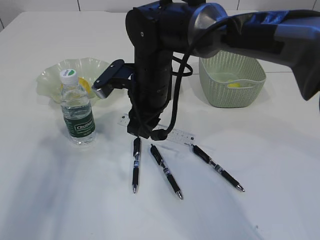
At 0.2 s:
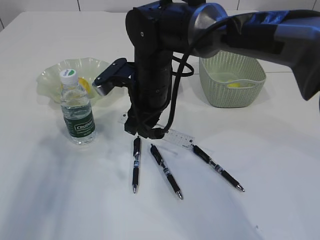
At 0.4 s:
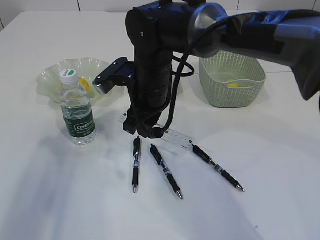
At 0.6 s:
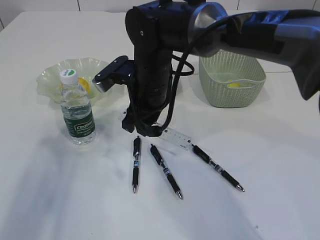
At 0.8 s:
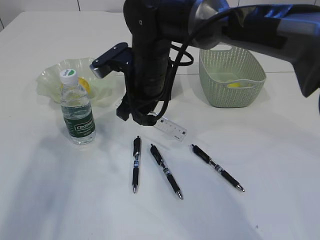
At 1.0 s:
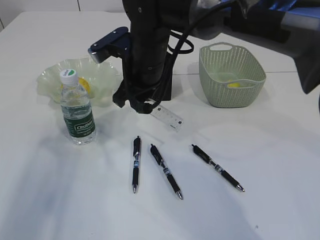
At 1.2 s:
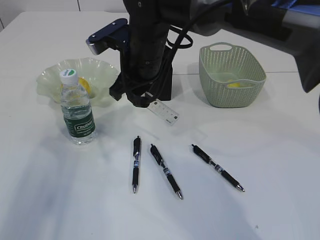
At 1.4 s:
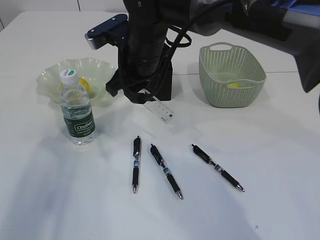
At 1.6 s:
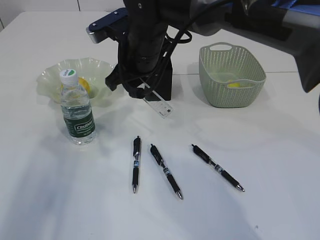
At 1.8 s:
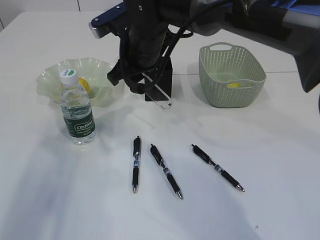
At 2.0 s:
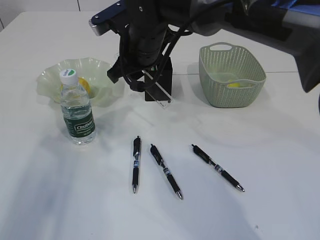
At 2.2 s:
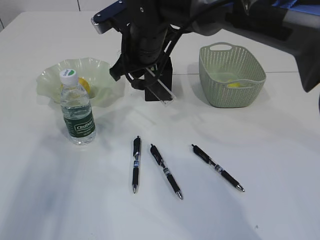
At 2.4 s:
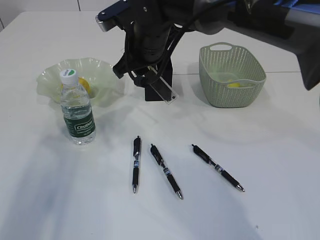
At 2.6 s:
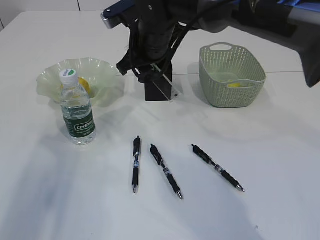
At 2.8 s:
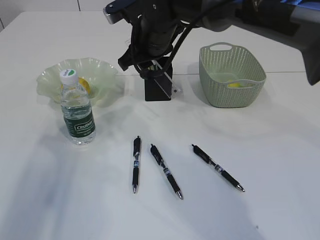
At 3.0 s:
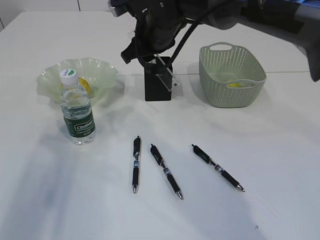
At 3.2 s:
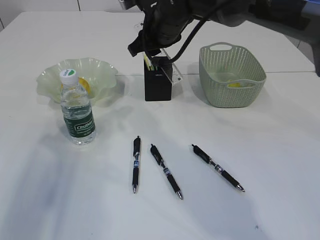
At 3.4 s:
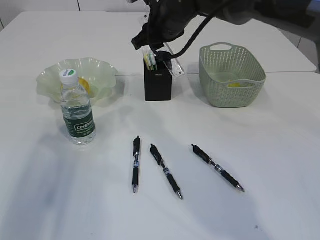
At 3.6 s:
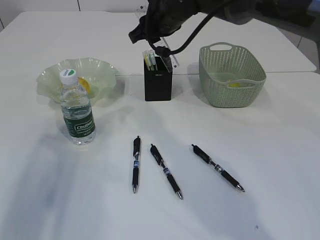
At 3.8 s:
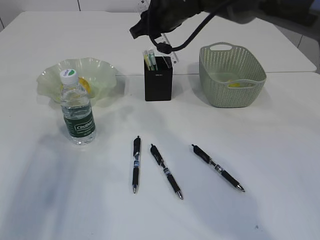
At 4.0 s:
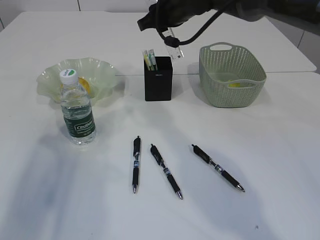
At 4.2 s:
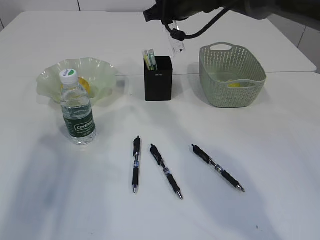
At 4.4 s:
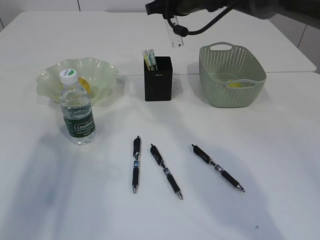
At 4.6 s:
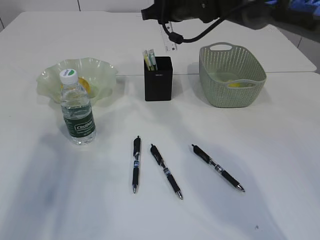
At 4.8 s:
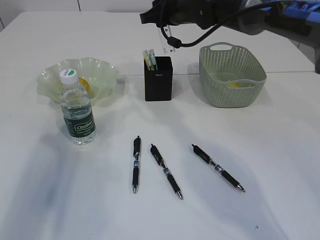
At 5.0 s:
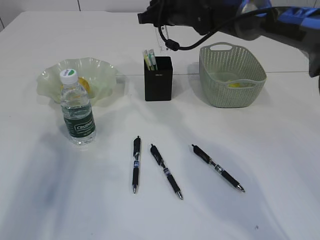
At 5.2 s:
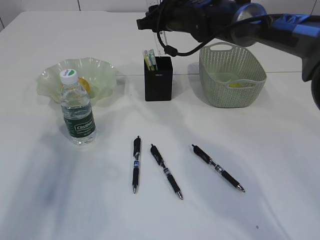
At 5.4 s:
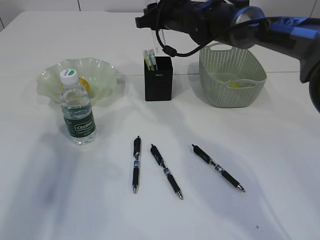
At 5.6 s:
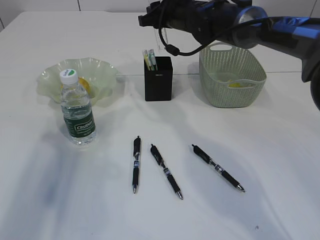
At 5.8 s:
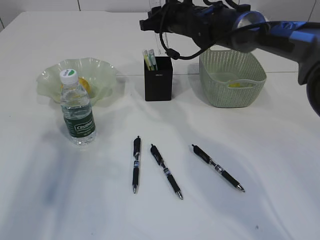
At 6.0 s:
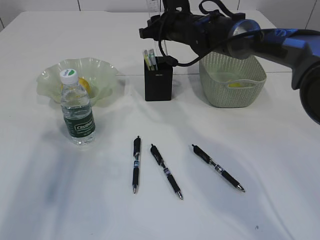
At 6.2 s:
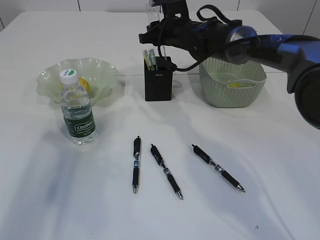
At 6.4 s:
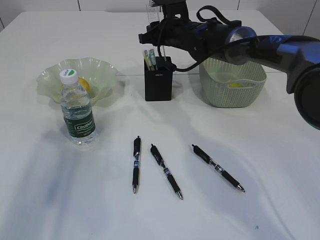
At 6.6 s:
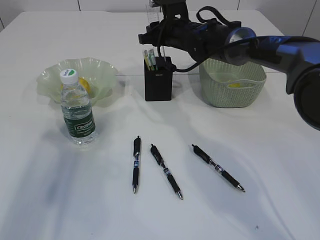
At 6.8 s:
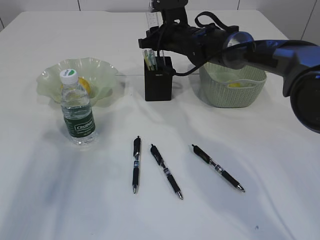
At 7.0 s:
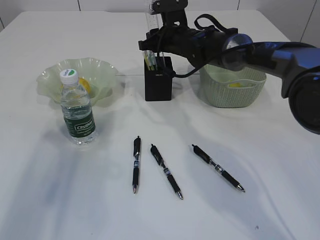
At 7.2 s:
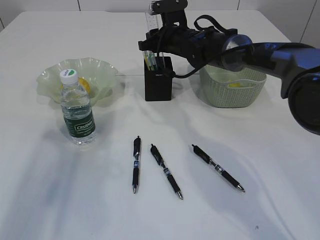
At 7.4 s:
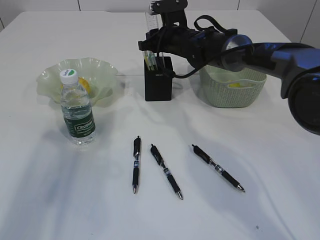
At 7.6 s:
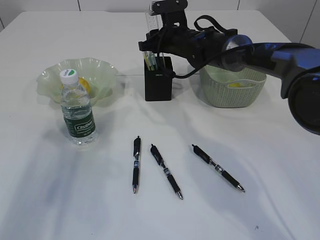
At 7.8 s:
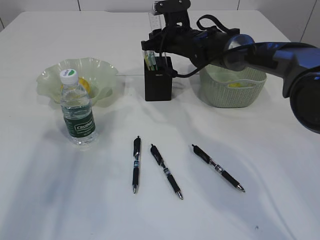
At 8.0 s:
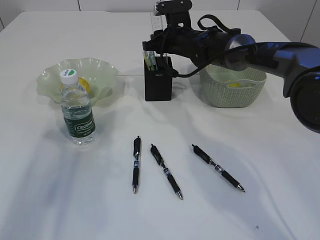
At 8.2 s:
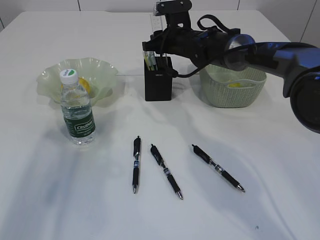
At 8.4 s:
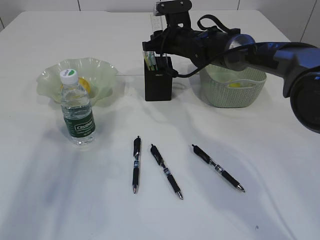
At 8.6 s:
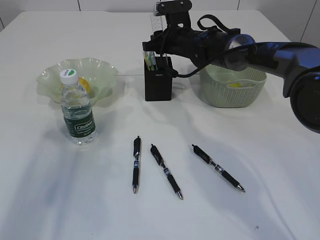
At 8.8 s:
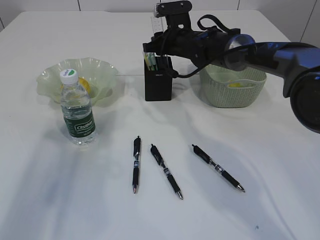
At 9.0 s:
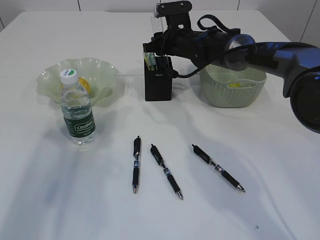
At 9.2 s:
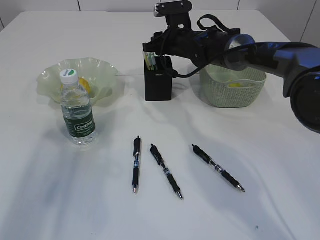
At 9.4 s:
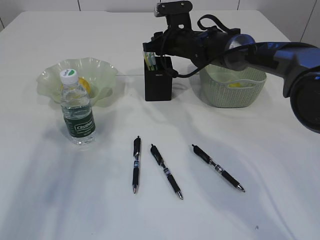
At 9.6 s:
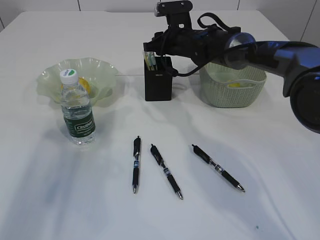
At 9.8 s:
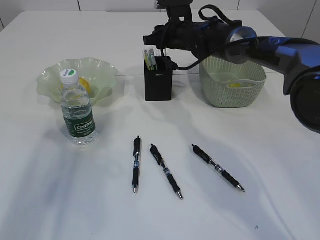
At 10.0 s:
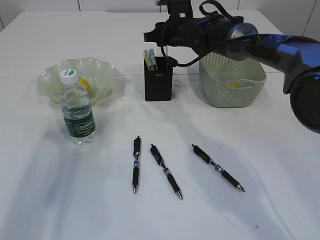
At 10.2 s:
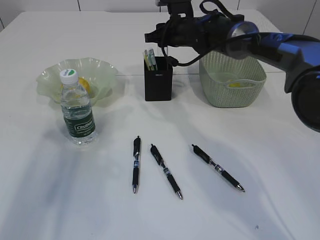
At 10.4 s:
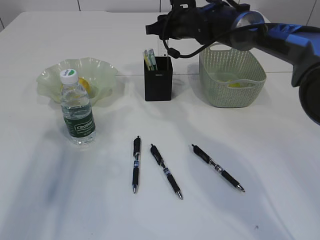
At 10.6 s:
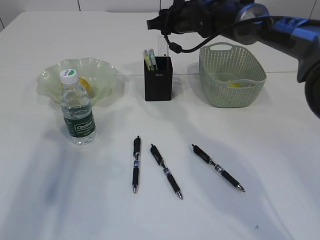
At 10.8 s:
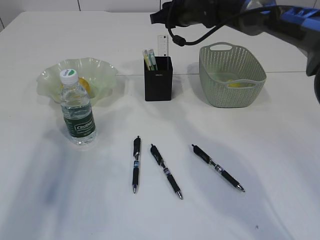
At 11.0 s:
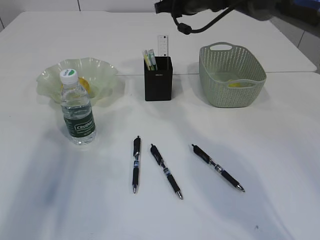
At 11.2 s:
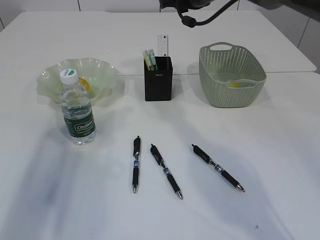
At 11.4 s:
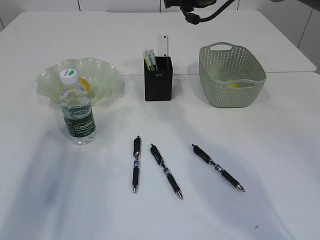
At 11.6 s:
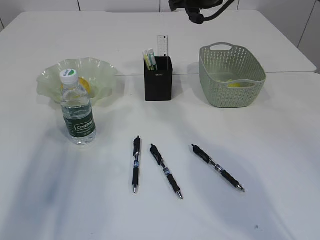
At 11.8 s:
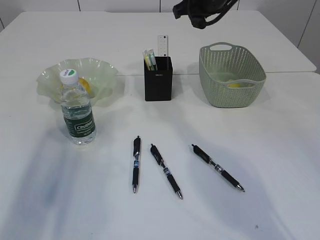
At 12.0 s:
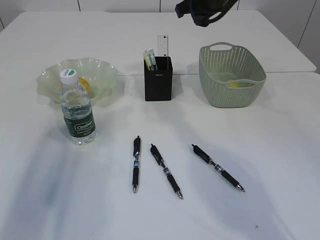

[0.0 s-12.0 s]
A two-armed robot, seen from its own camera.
Step, 0.0 to 2.2 s: pick up the ruler.
Step, 2.4 to 11.0 s: Place the ruler into the pen holder.
0.0 to 1.6 s: The right gripper ends up some 5 cm from where it was.
1.6 to 3.0 s: The right gripper changes place by roughly 5 cm.
3.0 to 4.4 s: The right gripper shifts approximately 10 cm to the right and forward.
4.4 to 6.0 s: The right gripper goes approximately 5 cm downward.
6.0 to 7.6 s: There are only small adjustments of the grippers.
7.6 to 9.0 s: Neither gripper changes place.
9.0 to 10.4 s: The grippers make only small movements.
10.4 to 12.0 s: The right gripper heads upward and backward, covering approximately 10 cm.

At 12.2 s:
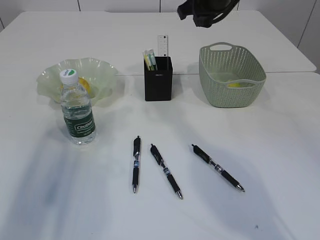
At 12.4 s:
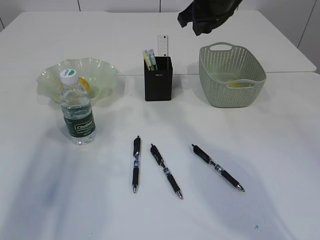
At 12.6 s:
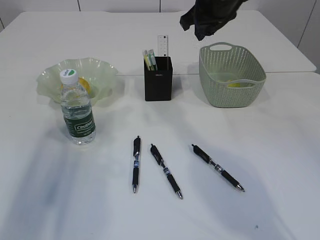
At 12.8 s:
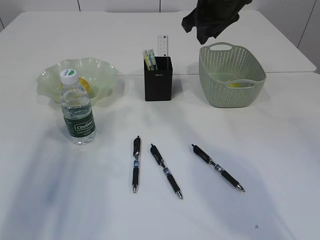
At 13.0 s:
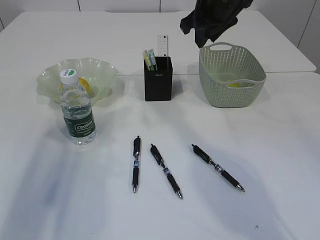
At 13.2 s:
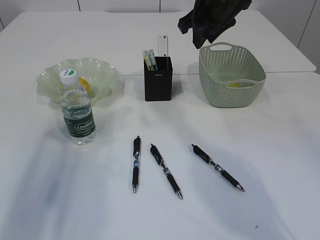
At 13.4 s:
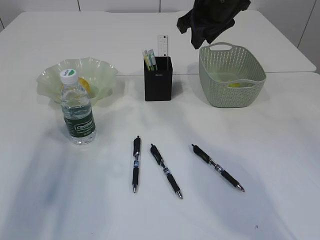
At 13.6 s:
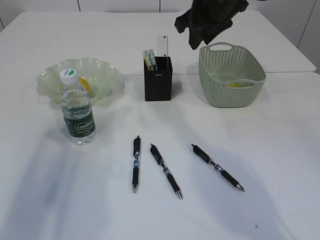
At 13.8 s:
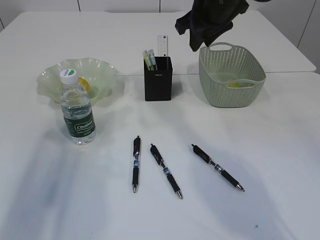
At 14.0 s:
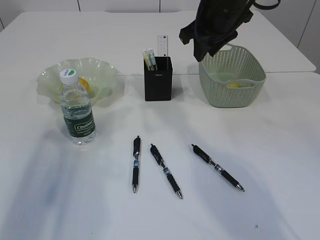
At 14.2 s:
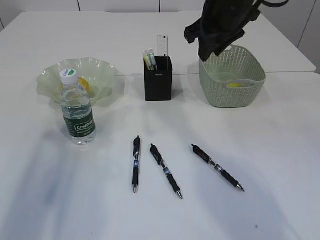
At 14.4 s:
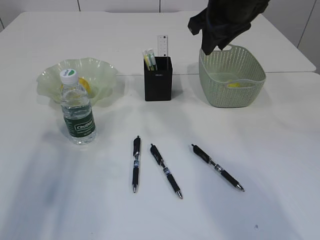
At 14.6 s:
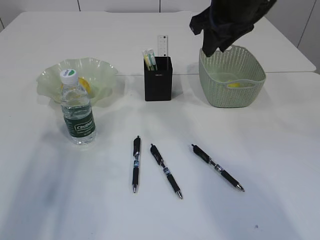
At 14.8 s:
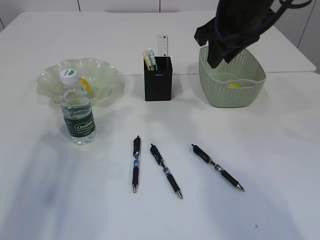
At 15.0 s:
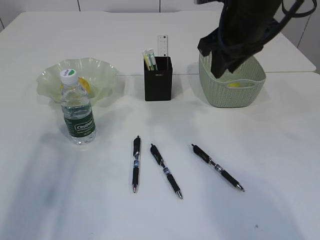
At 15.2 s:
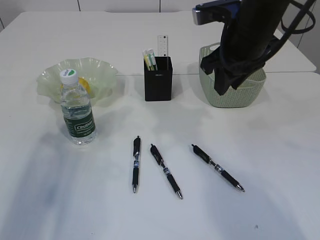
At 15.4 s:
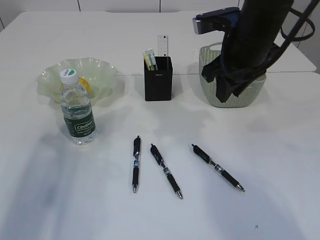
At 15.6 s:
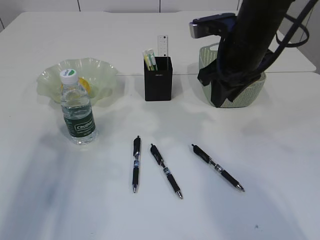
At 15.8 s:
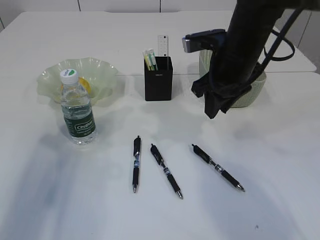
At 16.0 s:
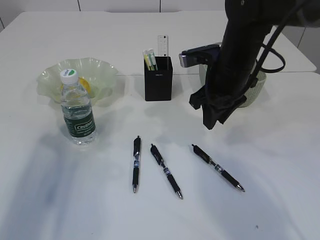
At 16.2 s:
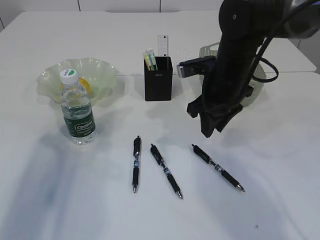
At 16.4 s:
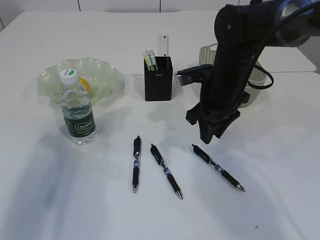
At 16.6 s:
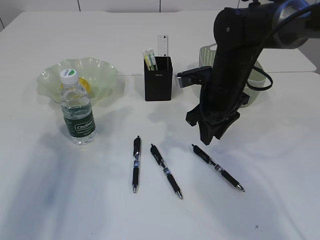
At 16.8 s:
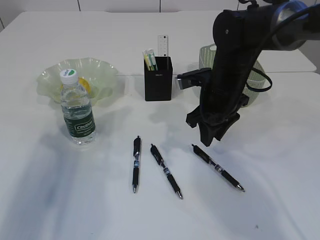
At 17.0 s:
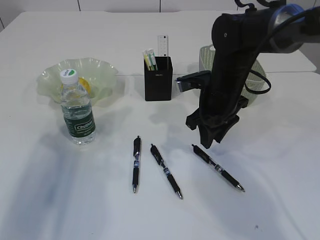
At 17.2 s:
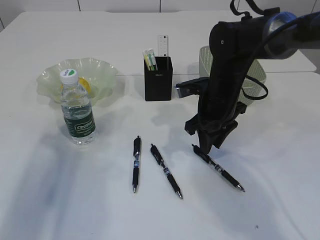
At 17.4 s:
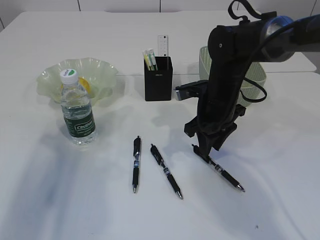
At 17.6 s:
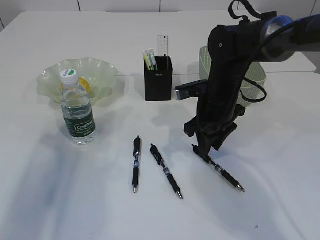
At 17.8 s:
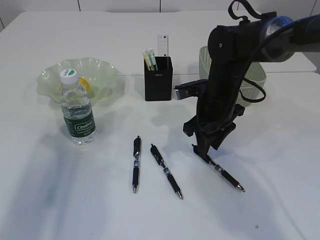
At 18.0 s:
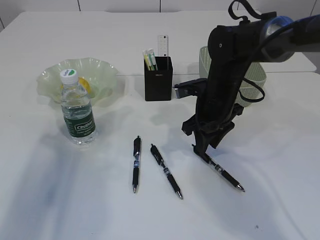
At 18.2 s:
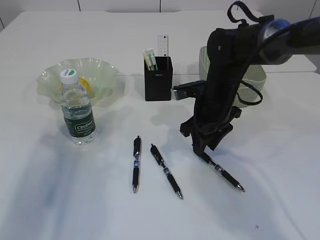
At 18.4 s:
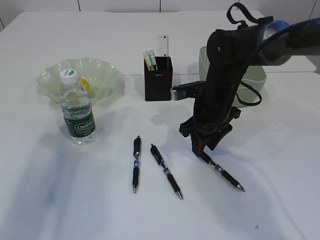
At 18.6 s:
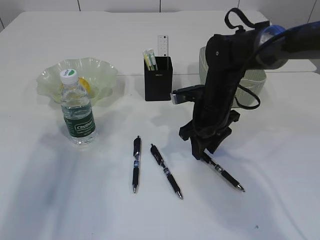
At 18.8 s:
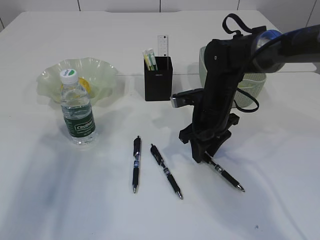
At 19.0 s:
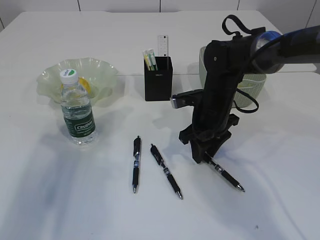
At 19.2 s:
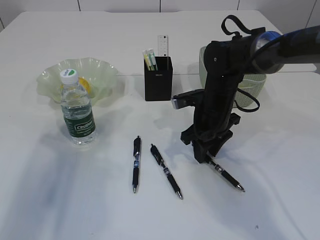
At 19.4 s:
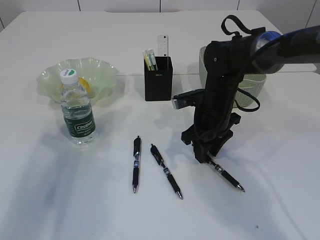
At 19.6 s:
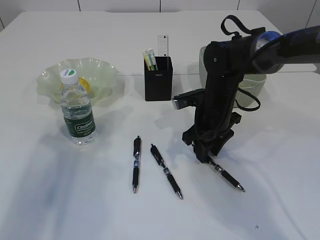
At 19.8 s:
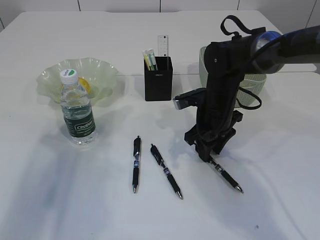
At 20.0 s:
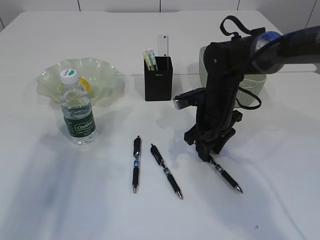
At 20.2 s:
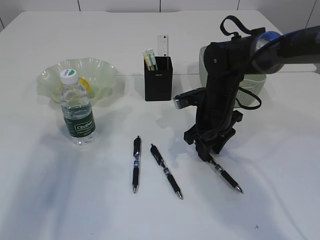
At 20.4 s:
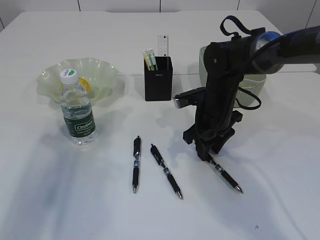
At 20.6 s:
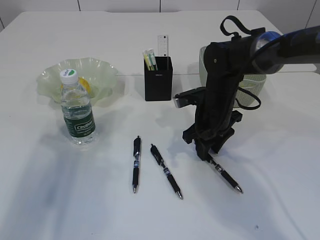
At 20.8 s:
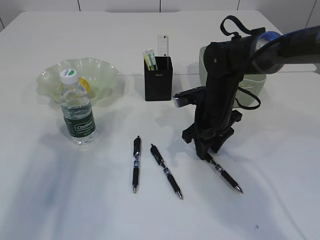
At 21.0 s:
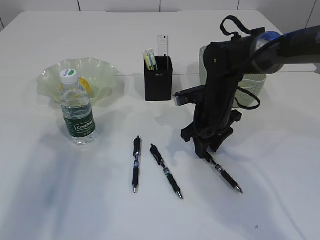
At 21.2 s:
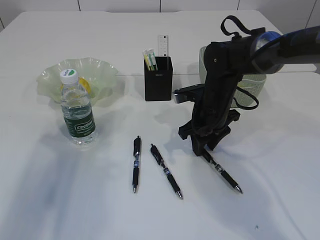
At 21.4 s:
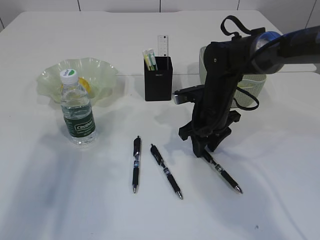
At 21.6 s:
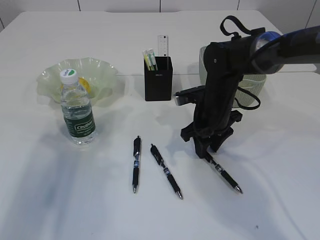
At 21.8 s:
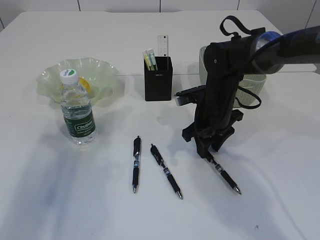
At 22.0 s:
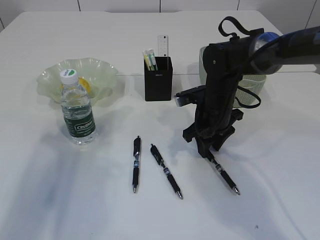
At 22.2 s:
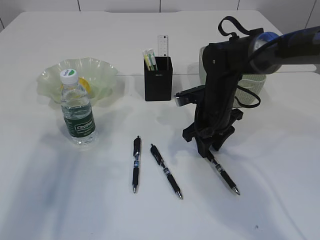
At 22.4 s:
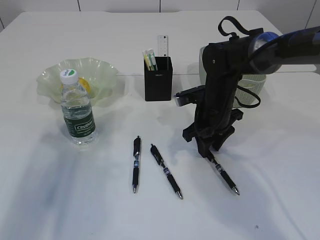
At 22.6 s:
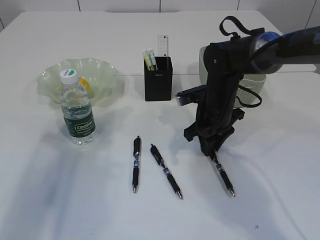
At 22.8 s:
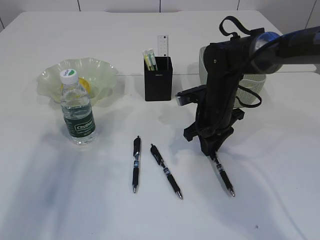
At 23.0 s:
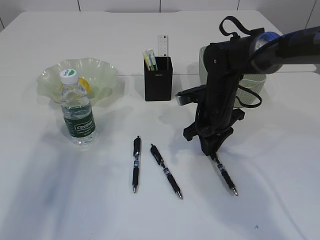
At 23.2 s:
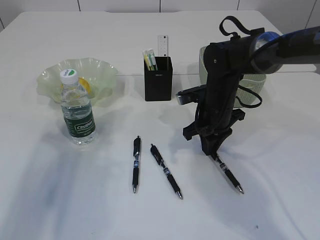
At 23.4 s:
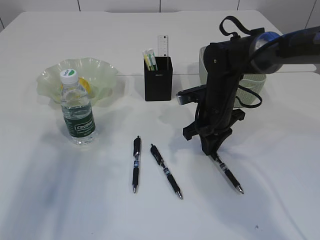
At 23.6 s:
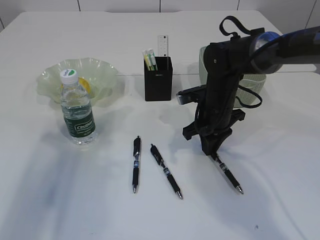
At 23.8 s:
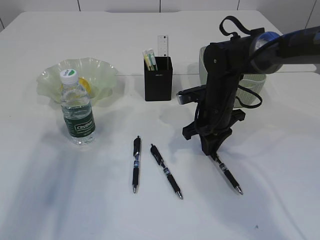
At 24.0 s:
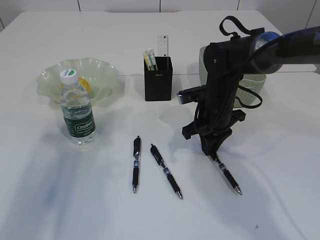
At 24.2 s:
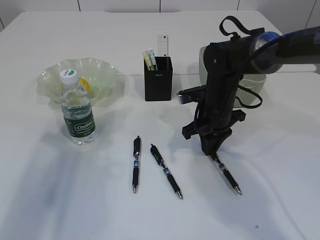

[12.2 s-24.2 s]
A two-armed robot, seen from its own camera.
12.2 to 13.8 s: The grippers make only small movements.
13.8 to 15.2 s: The right gripper moves backward, some 10 cm.
15.2 to 16.6 s: The right gripper is displaced downward by roughly 10 cm.
16.6 to 21.2 s: There are only small adjustments of the grippers.
21.2 to 22.6 s: Both grippers stay put.
22.6 to 24.2 s: The grippers stay close to where they were, moving slightly.
